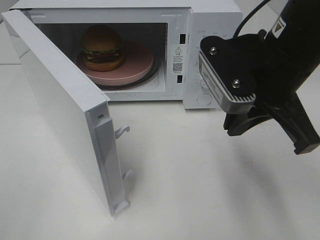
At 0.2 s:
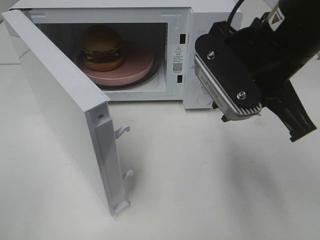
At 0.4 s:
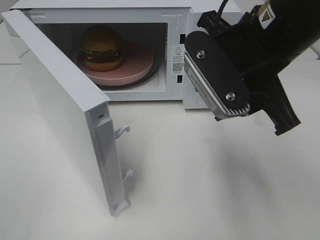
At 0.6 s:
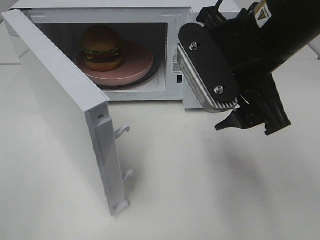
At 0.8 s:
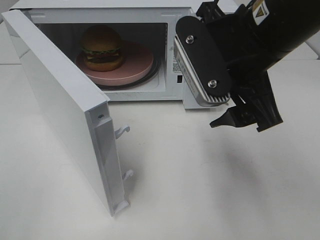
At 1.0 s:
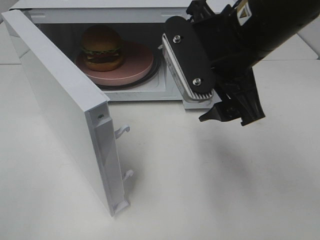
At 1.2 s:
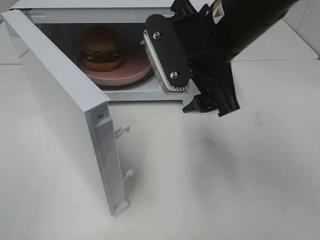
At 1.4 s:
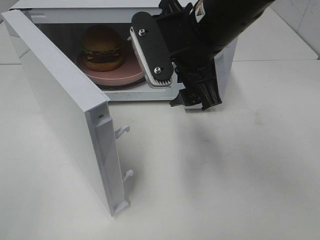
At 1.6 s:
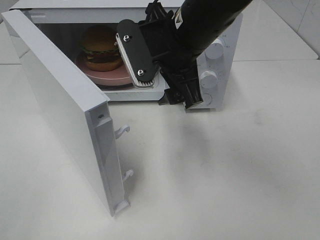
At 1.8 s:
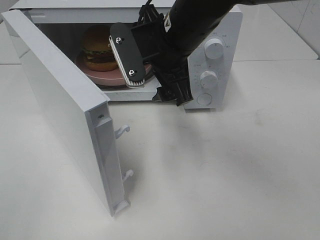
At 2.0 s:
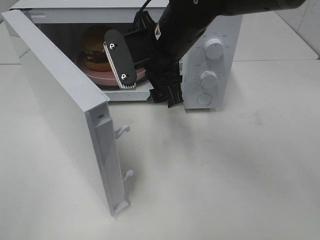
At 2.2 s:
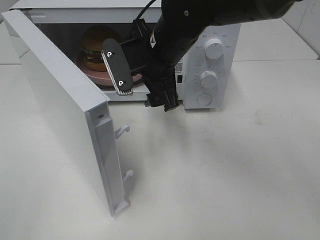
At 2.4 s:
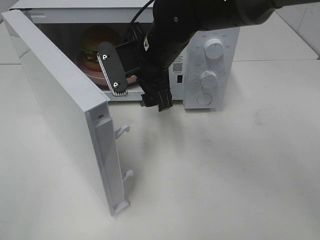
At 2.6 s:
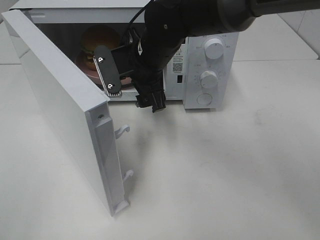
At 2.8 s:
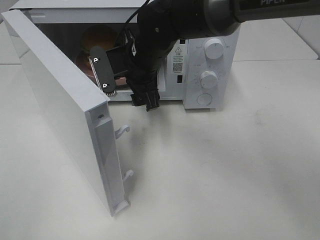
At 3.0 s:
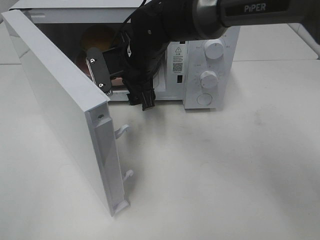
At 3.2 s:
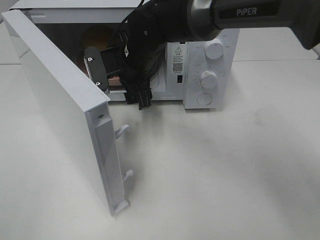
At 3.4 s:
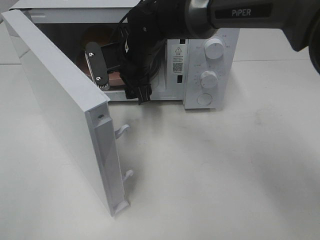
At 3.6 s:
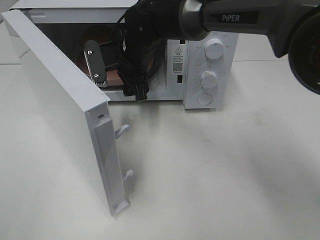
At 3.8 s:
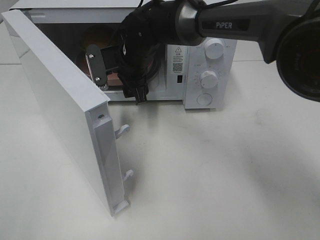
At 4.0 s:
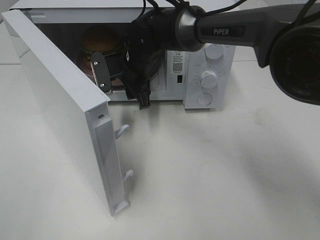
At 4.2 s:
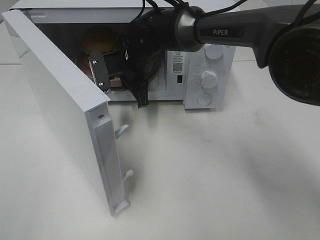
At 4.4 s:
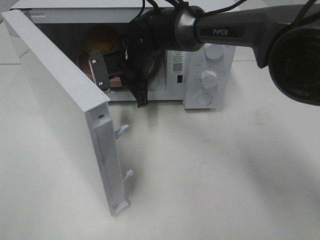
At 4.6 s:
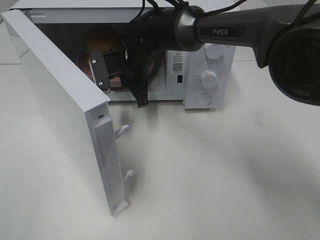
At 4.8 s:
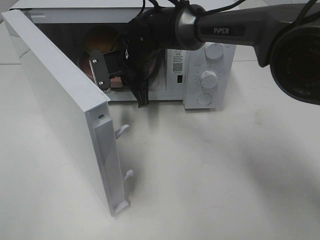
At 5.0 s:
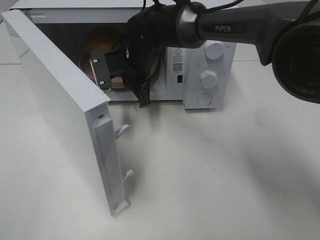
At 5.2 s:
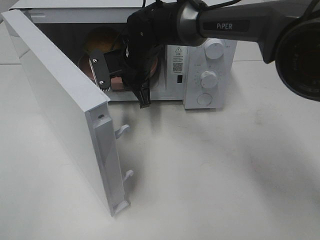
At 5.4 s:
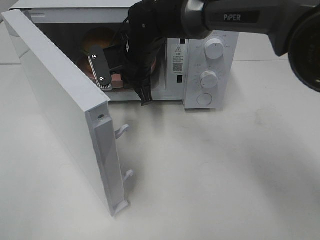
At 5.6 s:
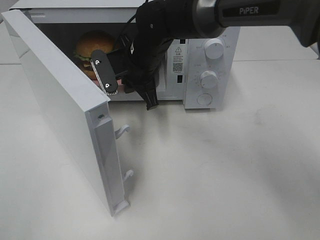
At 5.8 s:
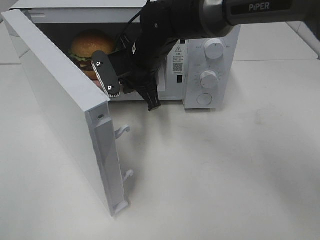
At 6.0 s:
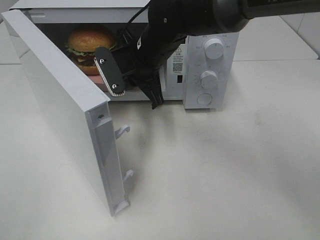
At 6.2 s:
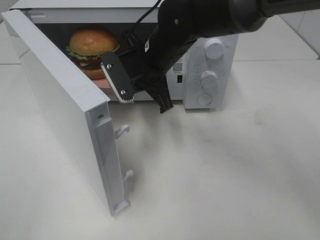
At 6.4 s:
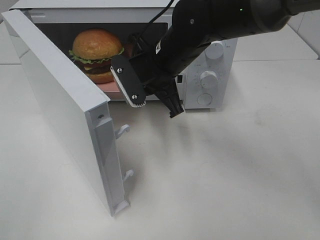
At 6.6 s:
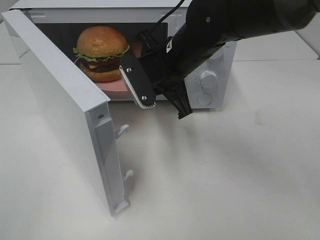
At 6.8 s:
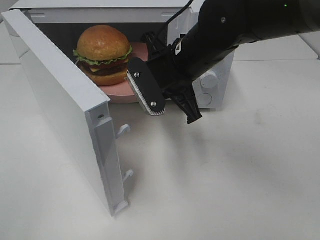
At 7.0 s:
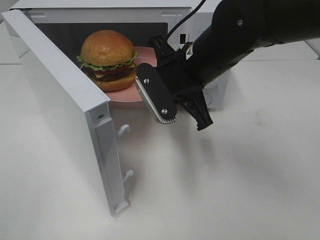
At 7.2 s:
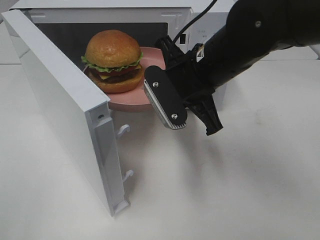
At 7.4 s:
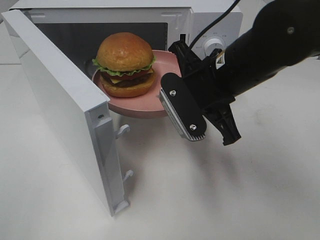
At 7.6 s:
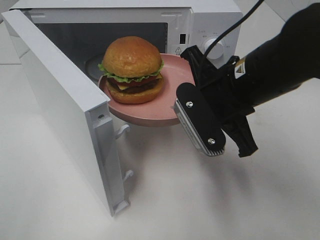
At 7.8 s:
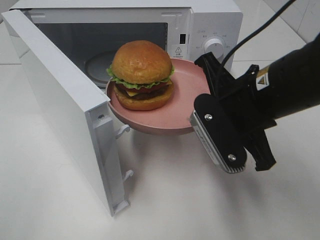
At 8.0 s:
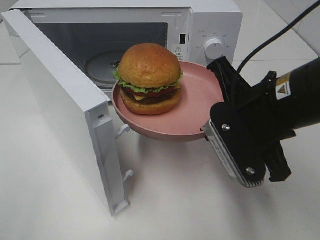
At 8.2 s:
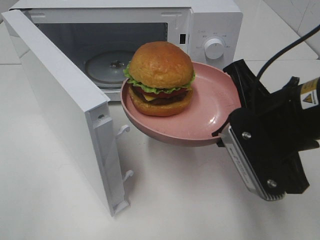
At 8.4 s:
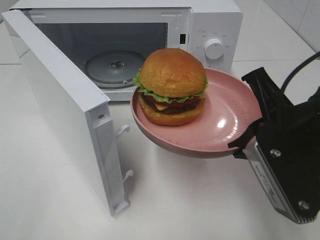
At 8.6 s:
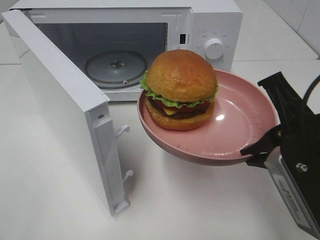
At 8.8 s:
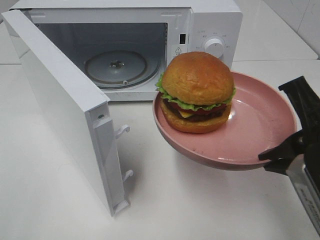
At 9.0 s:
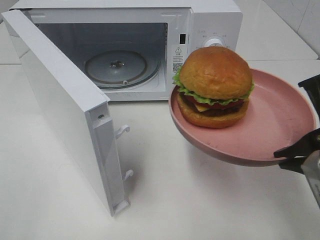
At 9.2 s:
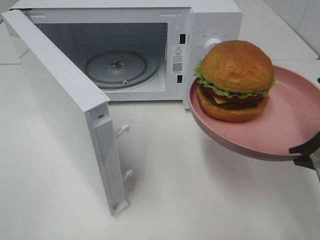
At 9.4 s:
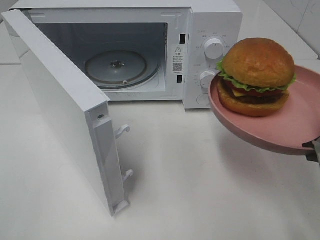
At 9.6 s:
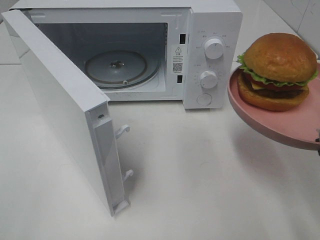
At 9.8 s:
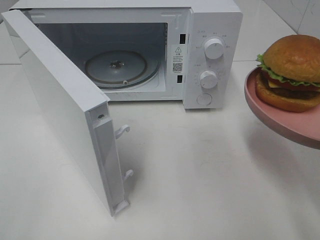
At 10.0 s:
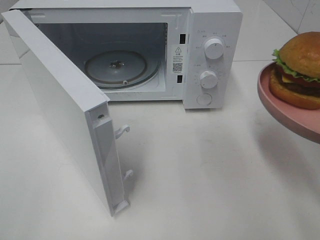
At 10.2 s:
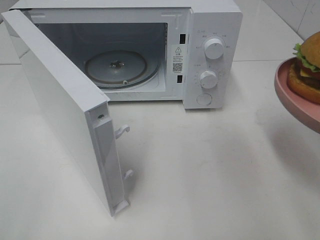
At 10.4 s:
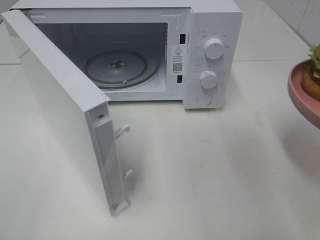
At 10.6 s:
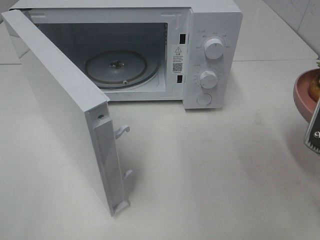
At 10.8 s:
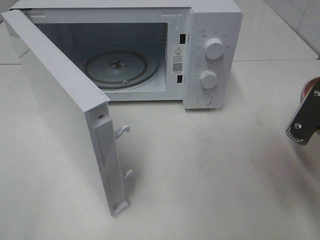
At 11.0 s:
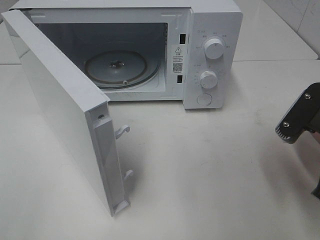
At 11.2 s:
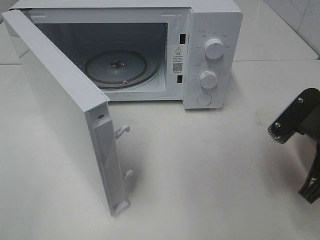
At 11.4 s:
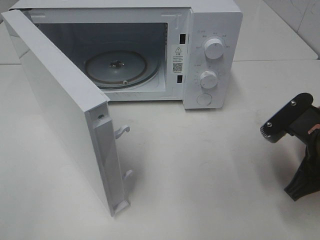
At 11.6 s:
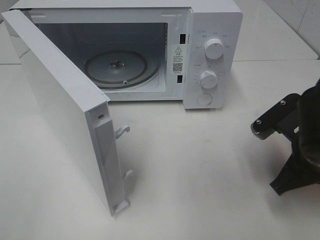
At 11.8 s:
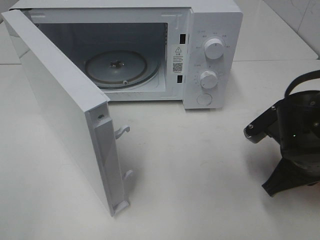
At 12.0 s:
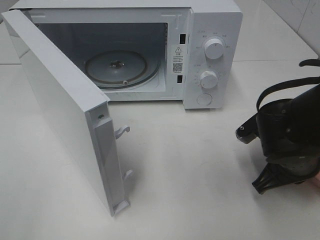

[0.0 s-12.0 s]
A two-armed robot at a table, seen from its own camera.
Task of the whole recording: Heat the burger.
Step, 0.0 to 4.6 s: Right hand: grab the plate with the hamburger.
0.0 to 1.6 s: The right gripper is displaced to the left and forward by some 10 cm, and opens up.
1.6 to 3.0 s: The right gripper travels forward, downward and to the left by roughly 15 cm.
3.0 to 4.4 s: The right gripper ends up approximately 5 cm from where it was, and closes up.
4.4 to 6.0 s: The right gripper goes about 5 cm backward.
6.0 to 7.6 s: The right gripper travels backward and to the right by roughly 20 cm.
7.6 to 9.0 s: The right gripper heads backward and to the right, covering roughly 15 cm.
10.4 to 12.0 s: The right gripper heads downward and forward, covering approximately 15 cm.

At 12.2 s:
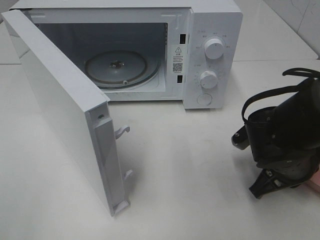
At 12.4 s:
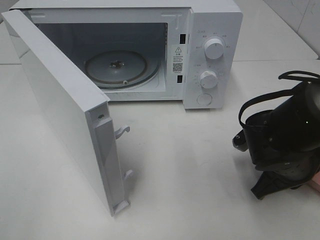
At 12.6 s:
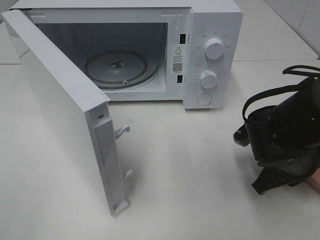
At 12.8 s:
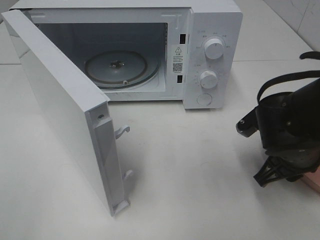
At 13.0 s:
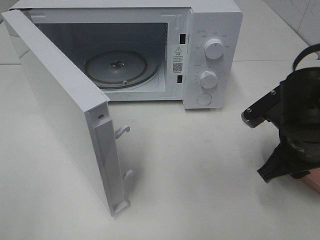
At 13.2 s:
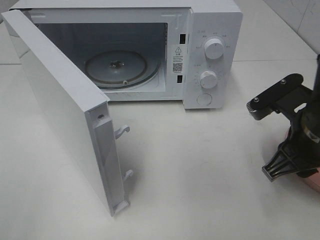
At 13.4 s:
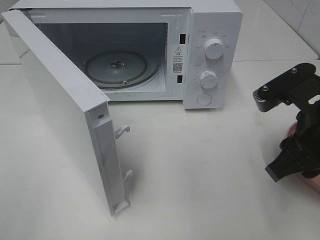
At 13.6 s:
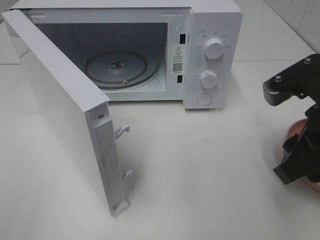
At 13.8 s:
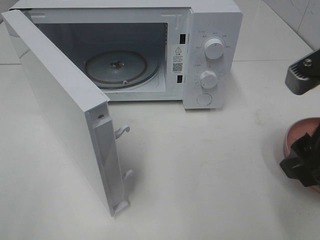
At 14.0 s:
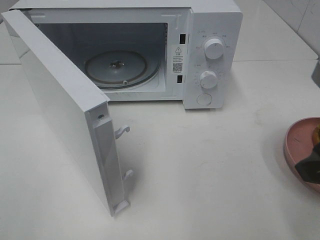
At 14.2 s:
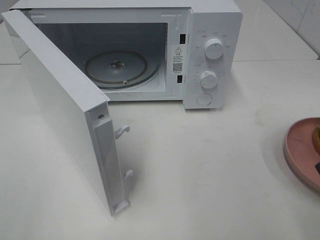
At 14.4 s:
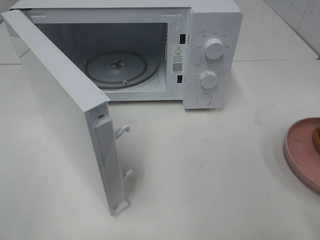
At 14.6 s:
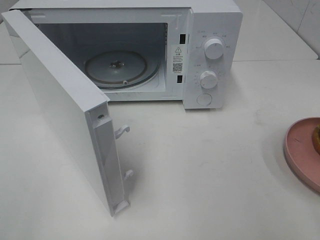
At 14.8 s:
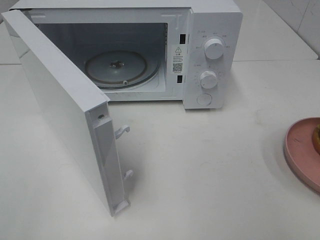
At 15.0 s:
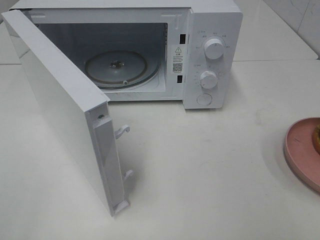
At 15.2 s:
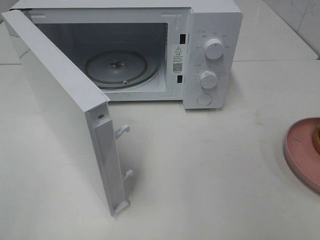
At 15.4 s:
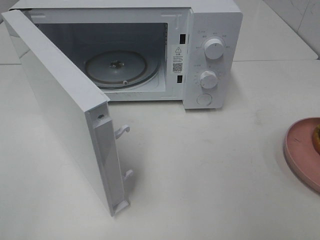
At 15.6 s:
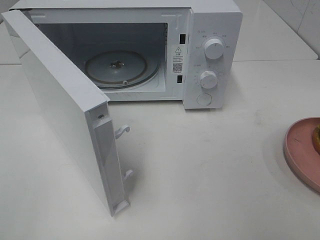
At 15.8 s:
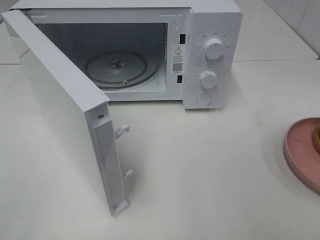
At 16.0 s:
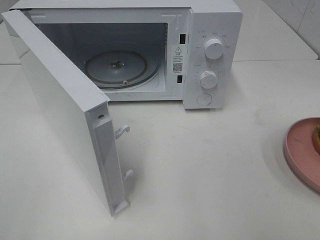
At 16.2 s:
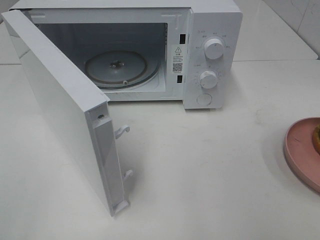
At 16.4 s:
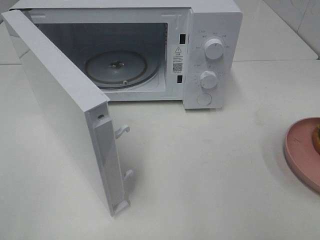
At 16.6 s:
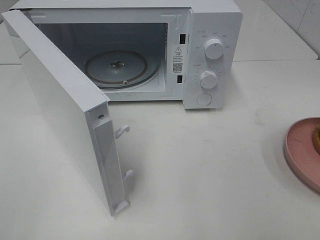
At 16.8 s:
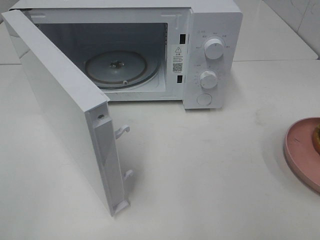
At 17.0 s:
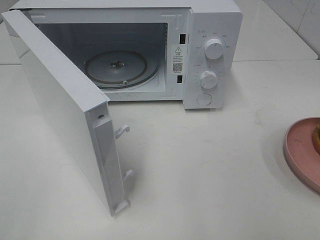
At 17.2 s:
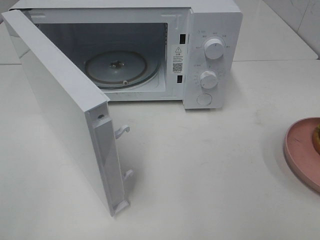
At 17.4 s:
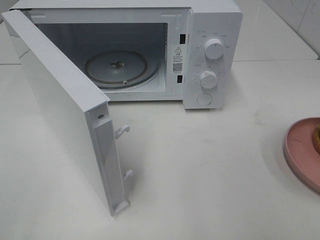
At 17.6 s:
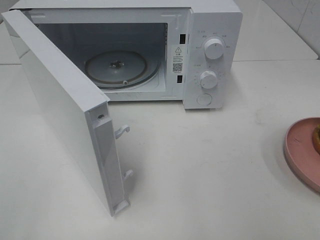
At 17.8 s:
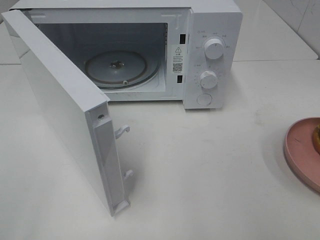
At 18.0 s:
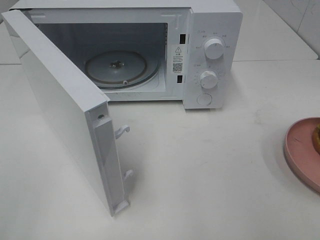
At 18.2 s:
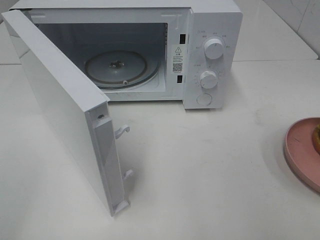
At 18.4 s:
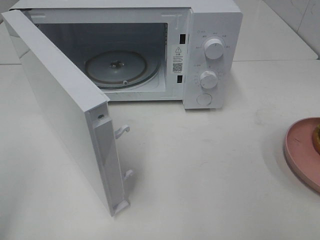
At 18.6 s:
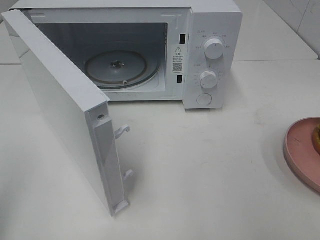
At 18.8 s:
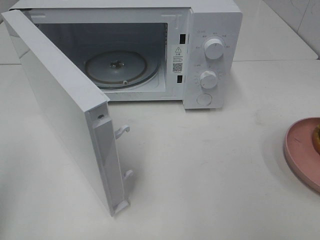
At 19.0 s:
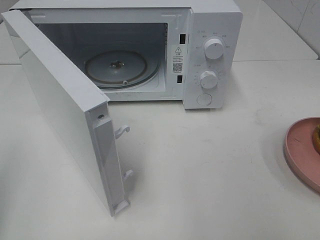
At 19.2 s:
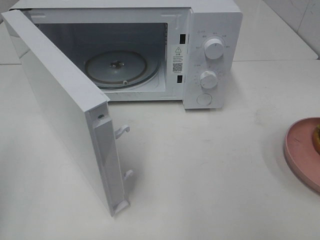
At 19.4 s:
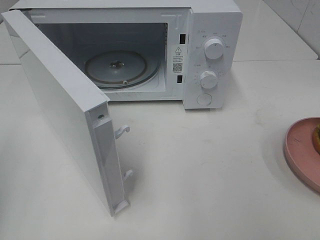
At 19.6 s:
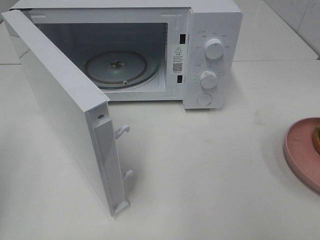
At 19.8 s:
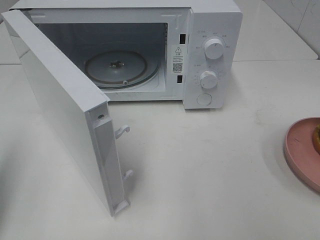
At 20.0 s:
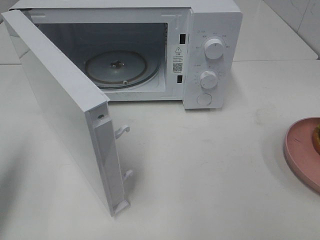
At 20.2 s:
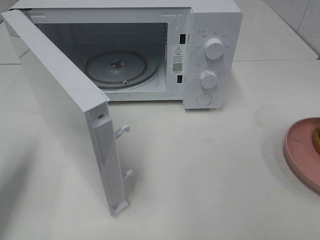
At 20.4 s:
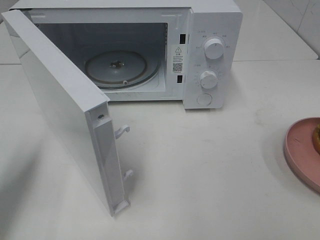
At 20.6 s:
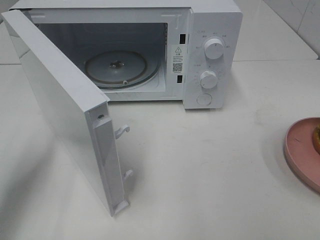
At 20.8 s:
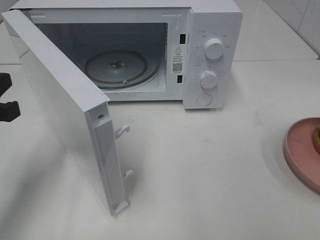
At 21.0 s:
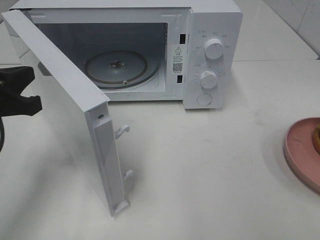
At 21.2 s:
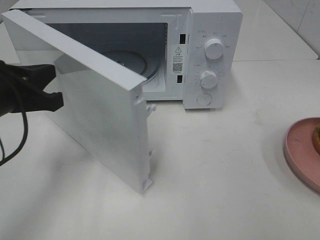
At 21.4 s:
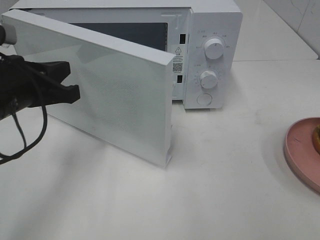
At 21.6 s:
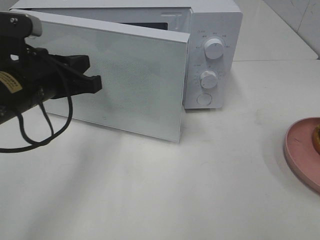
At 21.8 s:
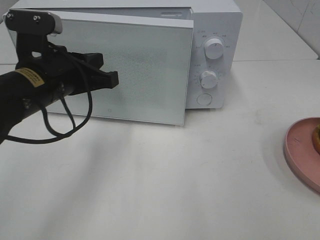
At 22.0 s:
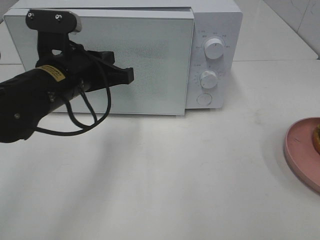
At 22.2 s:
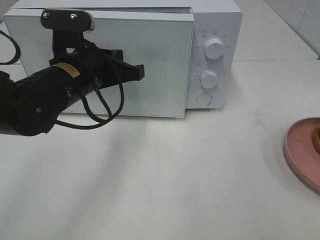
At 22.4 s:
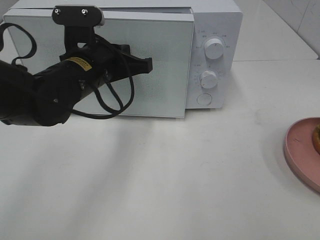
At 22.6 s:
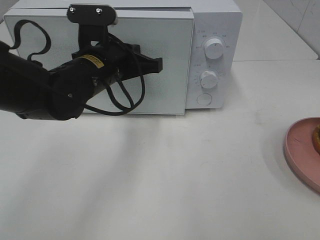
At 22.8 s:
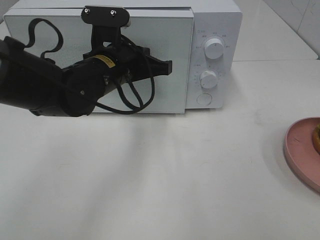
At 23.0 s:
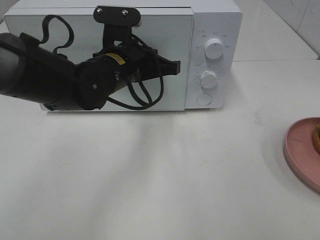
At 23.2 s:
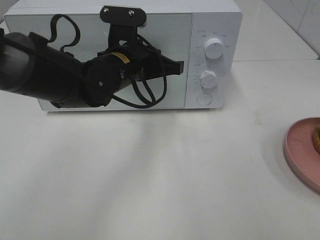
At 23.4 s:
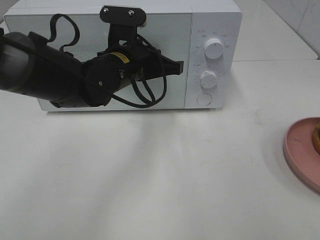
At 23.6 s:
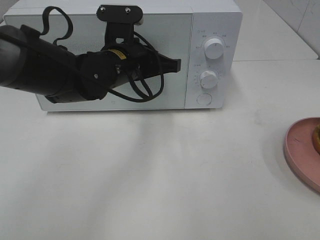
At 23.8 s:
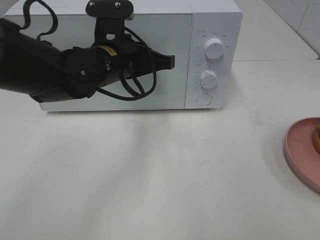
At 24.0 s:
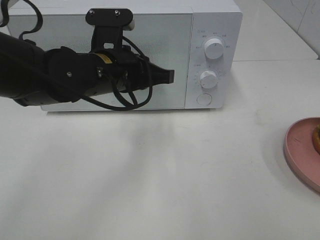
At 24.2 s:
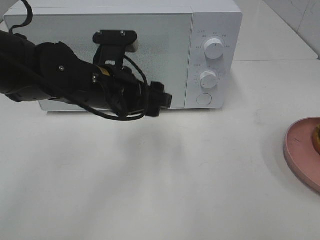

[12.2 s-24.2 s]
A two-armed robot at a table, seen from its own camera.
Task of the whole recording: Heat the burger.
12.2 to 13.8 s: The right gripper moves upward and backward, some 20 cm, and opens its fingers.
13.8 to 15.2 s: The right gripper travels backward and to the right by about 15 cm.
18.2 to 19.8 s: The left gripper shifts roughly 15 cm forward and downward, and closes its fingers.
19.8 to 21.2 s: The left gripper goes about 15 cm to the right and forward.
21.2 to 22.6 s: The left gripper travels to the right and forward by roughly 15 cm.
22.6 to 24.2 s: The left gripper opens.
